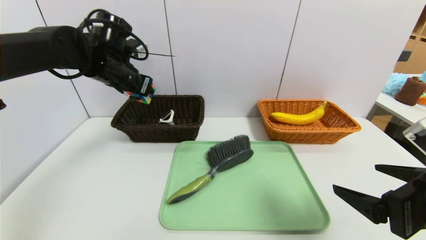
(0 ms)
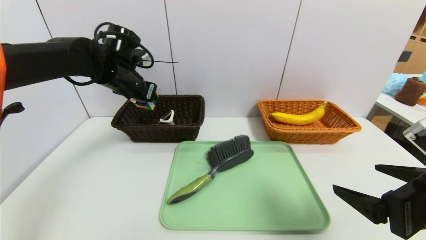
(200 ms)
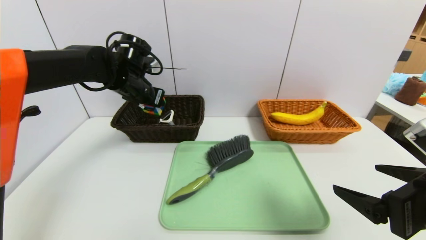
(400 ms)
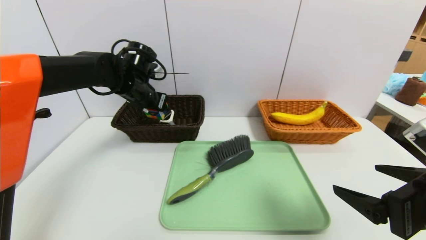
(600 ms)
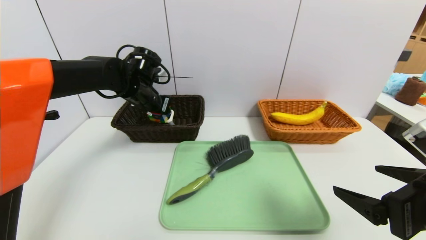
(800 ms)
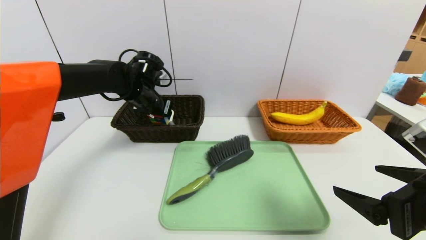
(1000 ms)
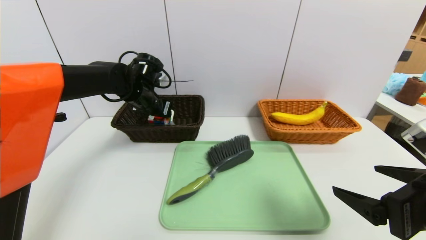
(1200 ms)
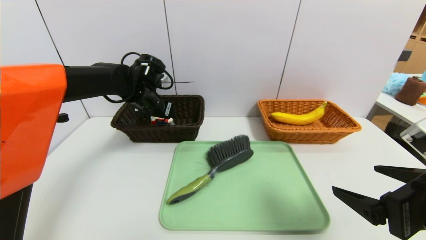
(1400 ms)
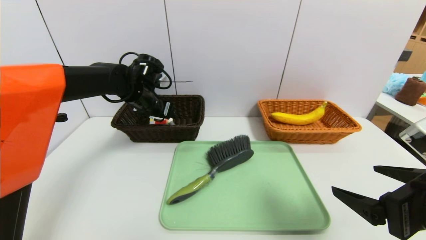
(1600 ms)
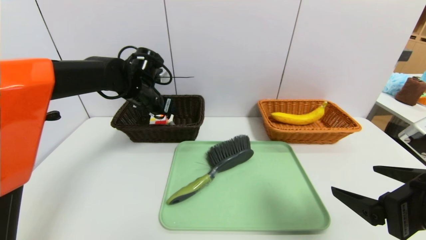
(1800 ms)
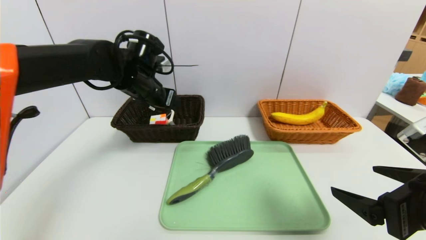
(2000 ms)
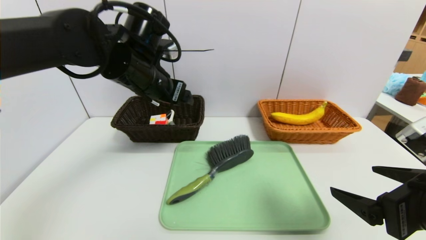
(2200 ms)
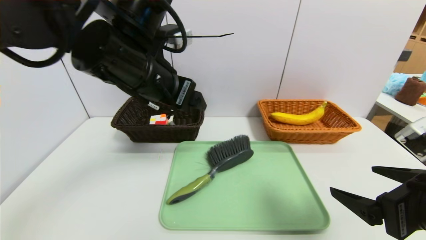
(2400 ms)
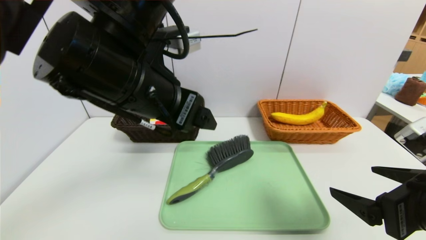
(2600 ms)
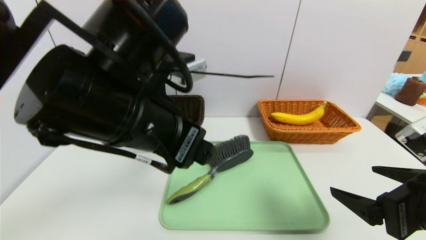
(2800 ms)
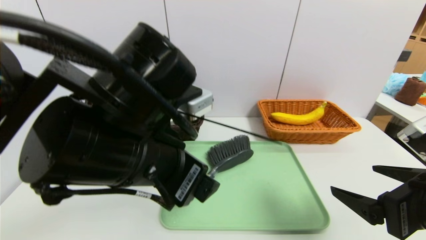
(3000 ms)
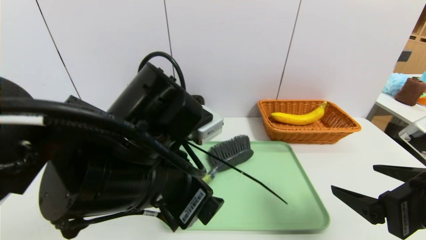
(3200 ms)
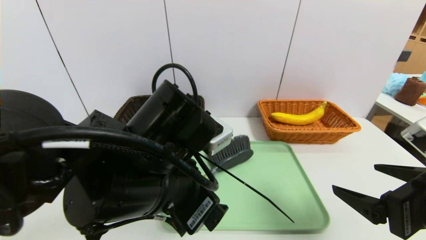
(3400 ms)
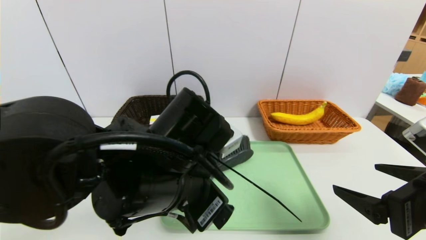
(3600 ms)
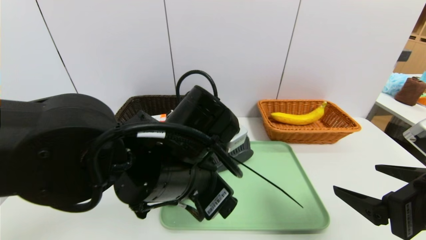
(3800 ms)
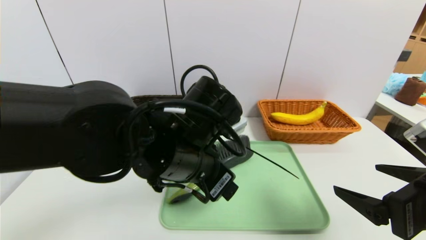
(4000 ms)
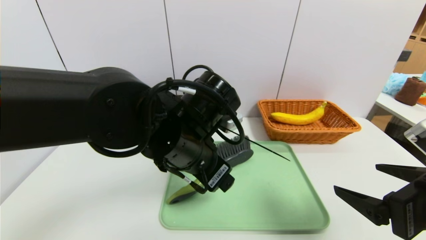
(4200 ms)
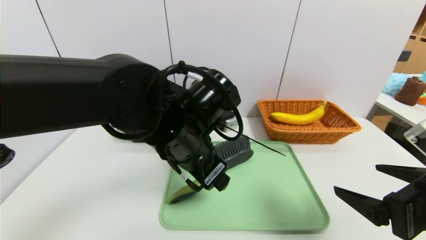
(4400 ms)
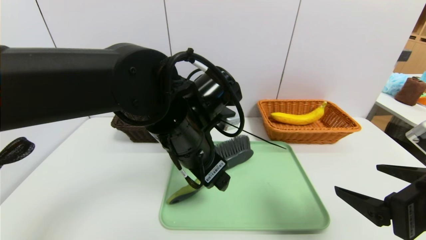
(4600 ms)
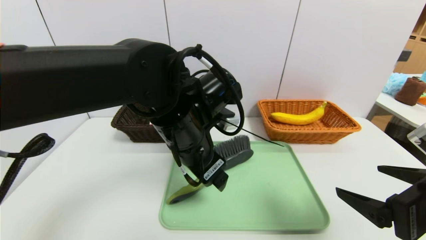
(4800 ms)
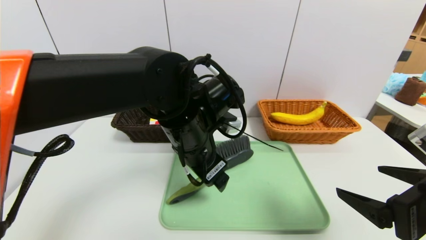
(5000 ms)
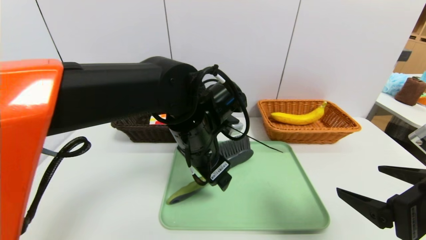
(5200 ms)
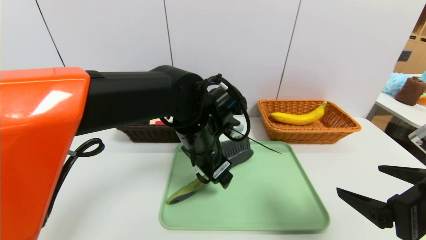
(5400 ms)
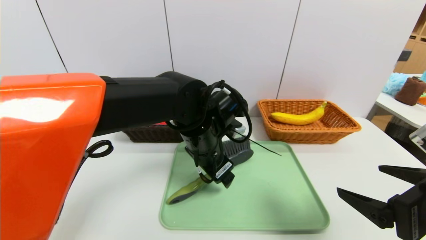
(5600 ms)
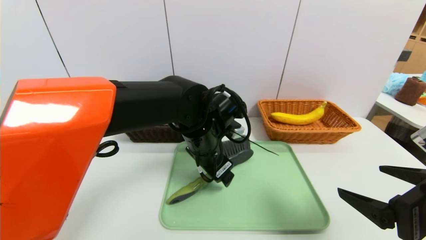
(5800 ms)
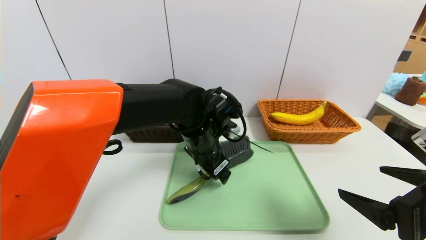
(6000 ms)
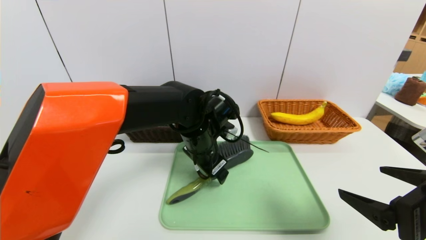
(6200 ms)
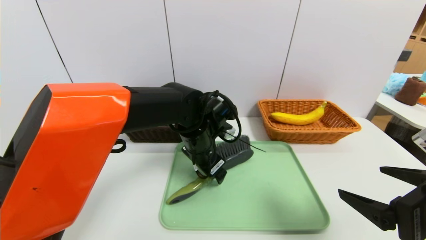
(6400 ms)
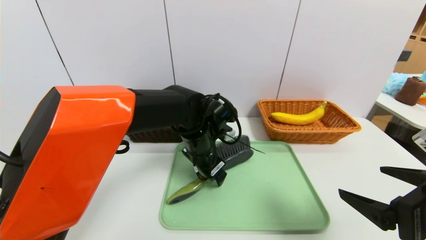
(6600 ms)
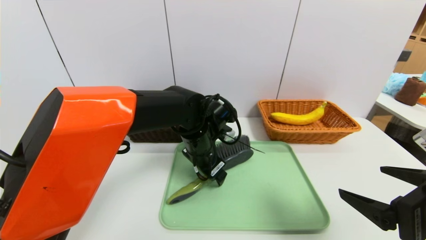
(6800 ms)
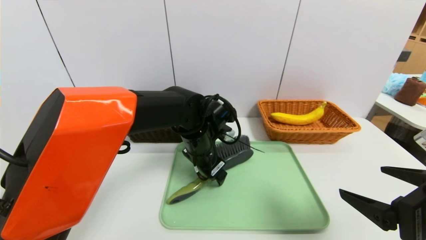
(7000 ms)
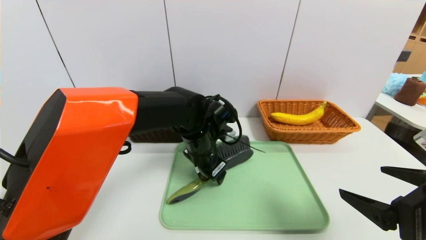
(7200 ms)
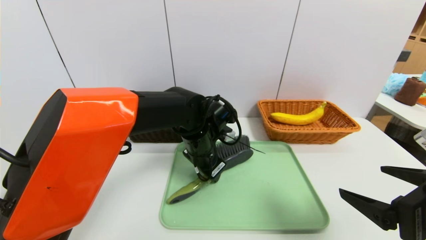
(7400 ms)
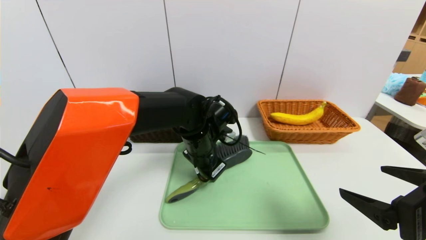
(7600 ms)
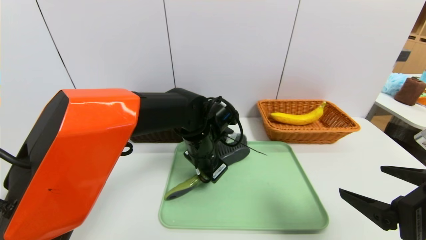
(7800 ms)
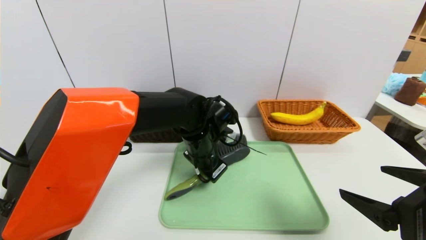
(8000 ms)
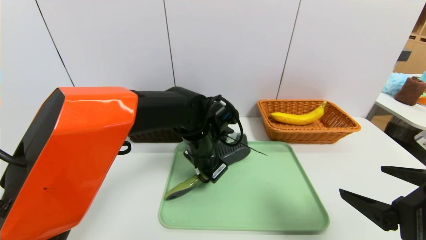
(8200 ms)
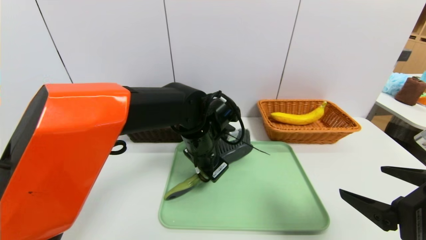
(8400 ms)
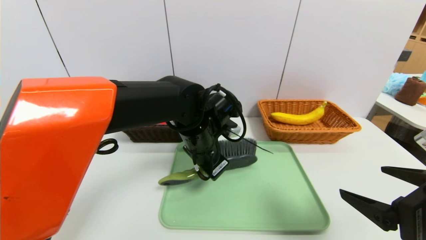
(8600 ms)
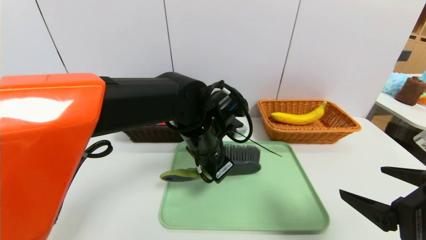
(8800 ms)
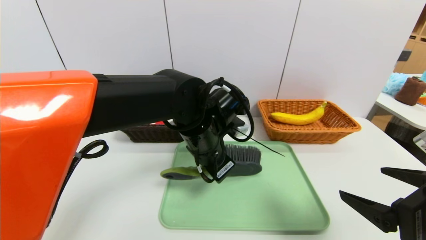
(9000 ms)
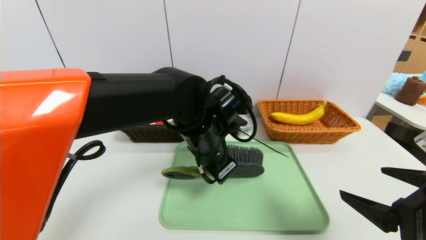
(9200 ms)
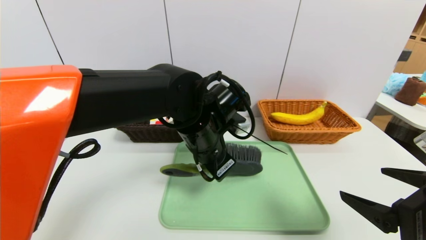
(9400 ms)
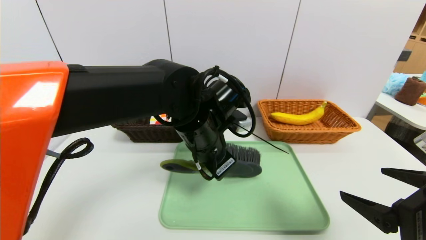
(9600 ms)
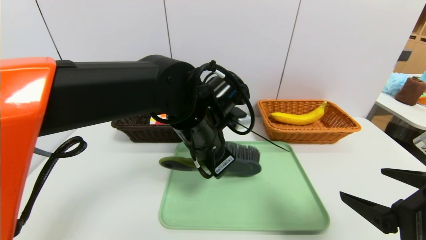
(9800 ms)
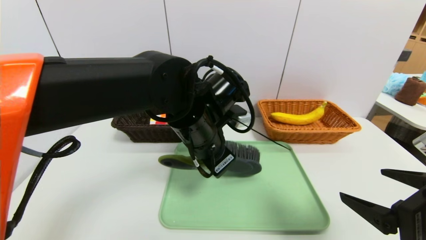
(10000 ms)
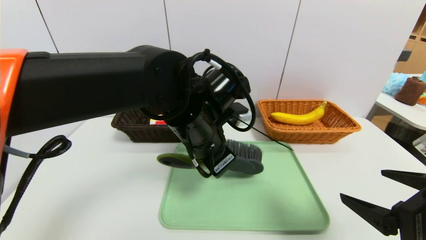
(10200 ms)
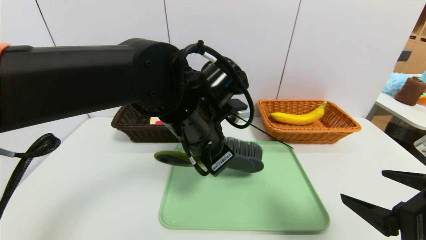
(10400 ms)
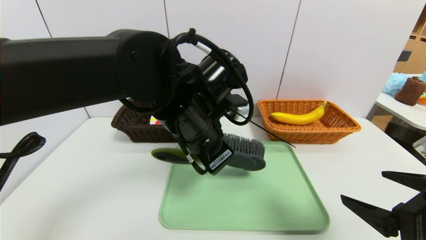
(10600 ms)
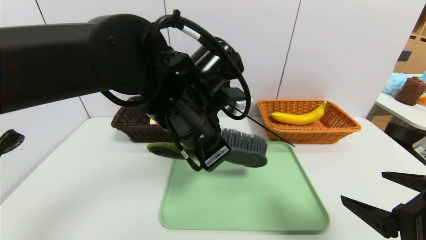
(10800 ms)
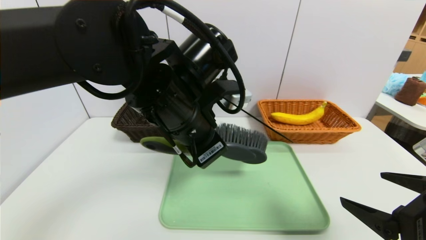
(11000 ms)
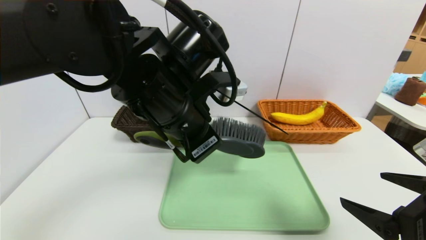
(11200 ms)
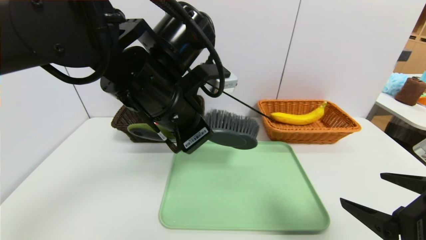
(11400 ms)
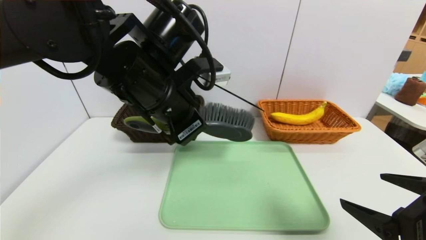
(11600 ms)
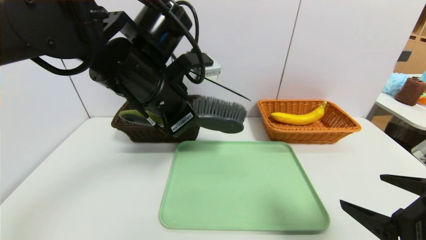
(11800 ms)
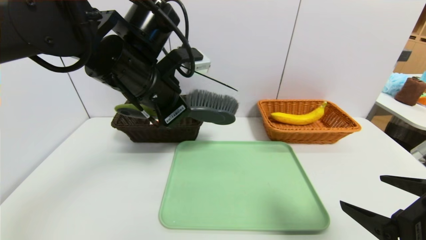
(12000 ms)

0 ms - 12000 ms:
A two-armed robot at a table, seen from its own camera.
Task of the whole recording: place the food in the right basket with the right gripper, and place the non food items in the left basket with the left gripper.
0 ms - 1600 ms: The left gripper travels downward by roughly 5 cm.
1600 ms - 3000 ms: The left gripper moves backward, roughly 25 cm.
3000 ms - 4400 ms: The left gripper heads forward, covering roughly 5 cm.
4400 ms - 6000 ms: The left gripper shifts about 10 cm forward and downward.
6000 ms - 7600 ms: The left gripper closes its fingers.
7600 ms - 9000 ms: The left gripper goes roughly 5 cm upward, and closes.
9000 ms - 10400 ms: The left gripper ends up approximately 5 cm from where it was.
10400 ms - 12000 ms: The left gripper is displaced to the left and upward by roughly 10 cm.

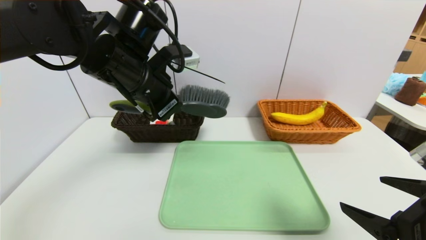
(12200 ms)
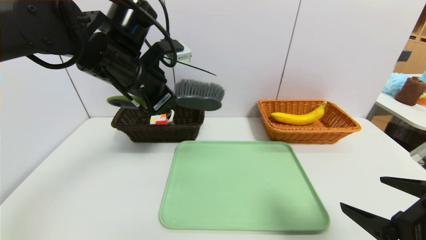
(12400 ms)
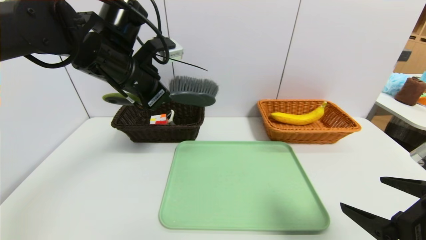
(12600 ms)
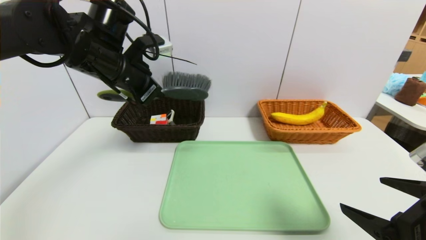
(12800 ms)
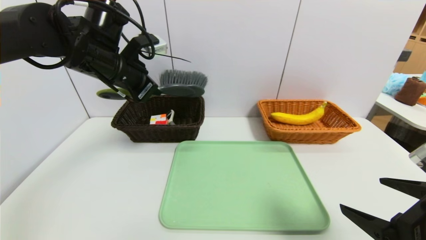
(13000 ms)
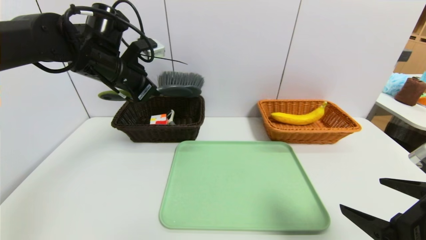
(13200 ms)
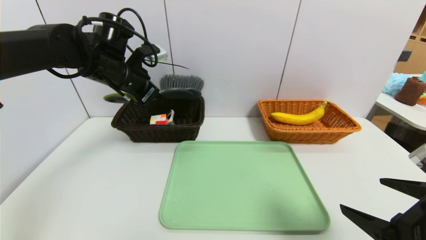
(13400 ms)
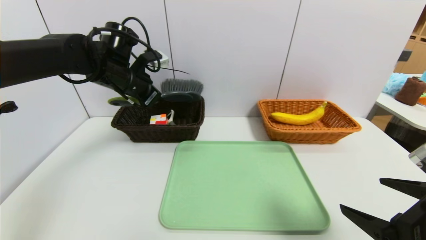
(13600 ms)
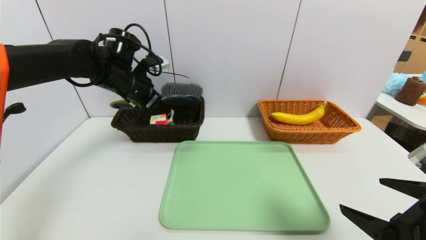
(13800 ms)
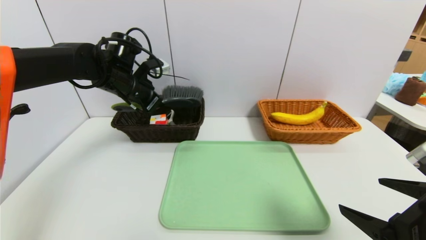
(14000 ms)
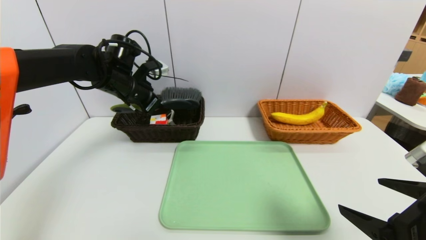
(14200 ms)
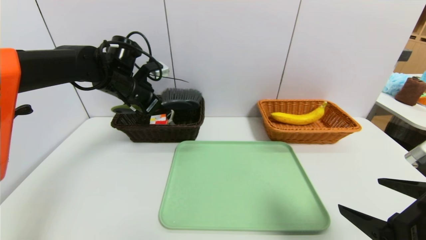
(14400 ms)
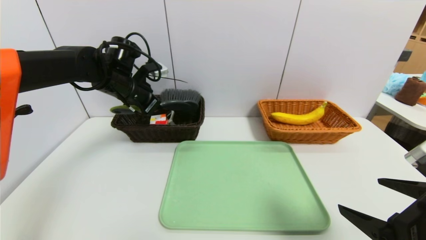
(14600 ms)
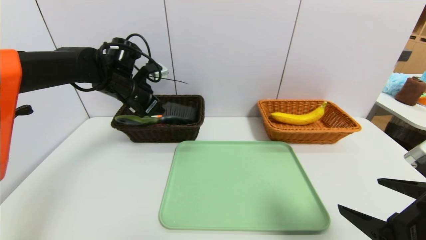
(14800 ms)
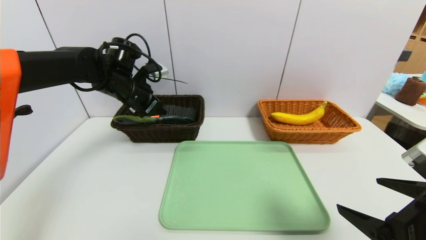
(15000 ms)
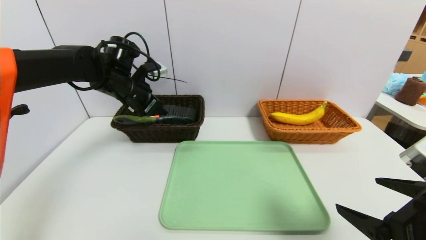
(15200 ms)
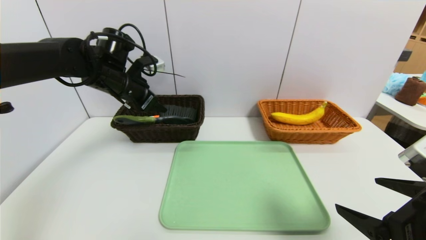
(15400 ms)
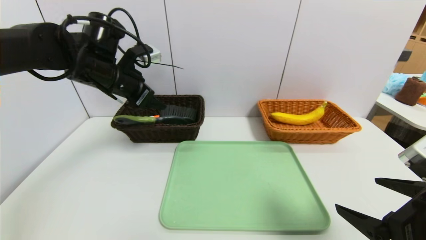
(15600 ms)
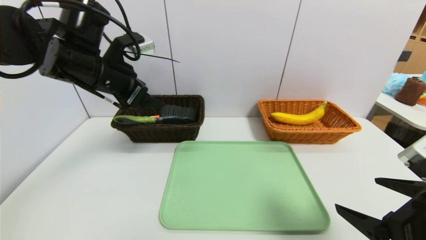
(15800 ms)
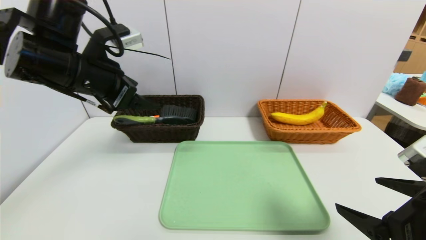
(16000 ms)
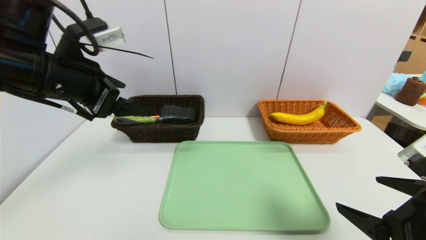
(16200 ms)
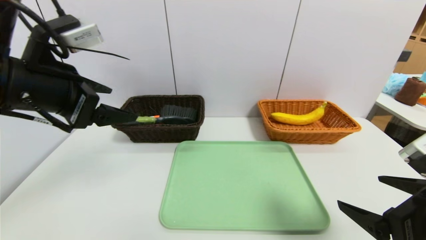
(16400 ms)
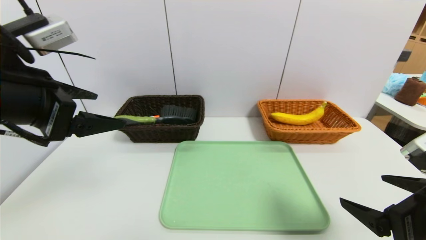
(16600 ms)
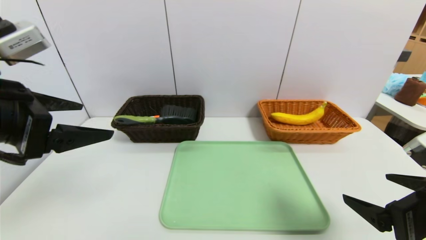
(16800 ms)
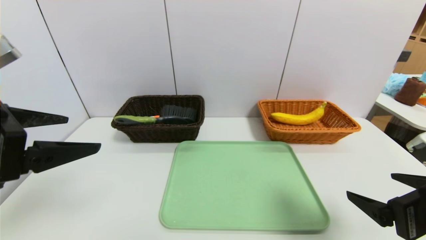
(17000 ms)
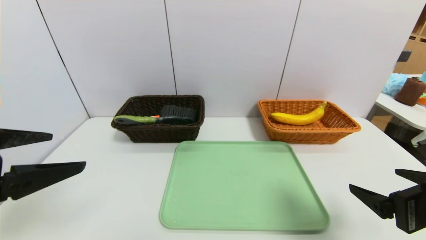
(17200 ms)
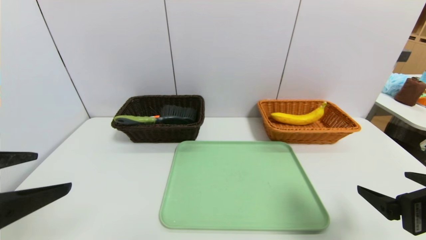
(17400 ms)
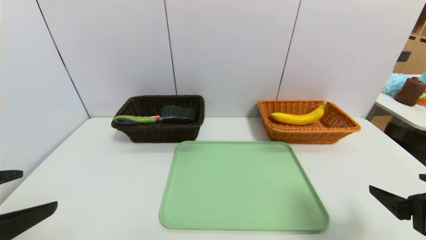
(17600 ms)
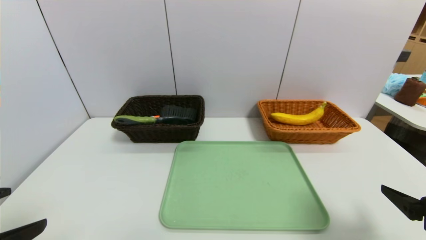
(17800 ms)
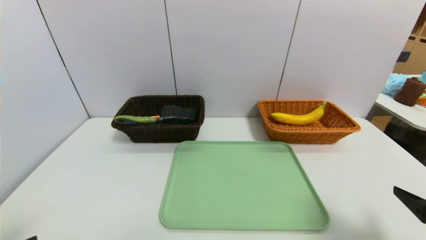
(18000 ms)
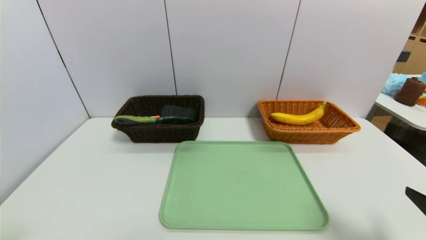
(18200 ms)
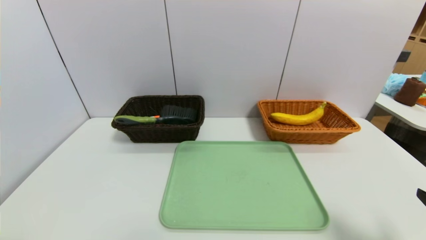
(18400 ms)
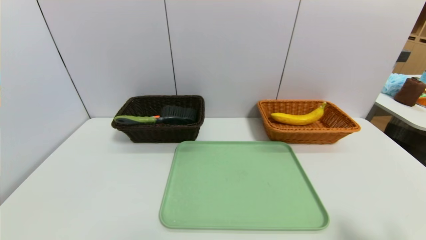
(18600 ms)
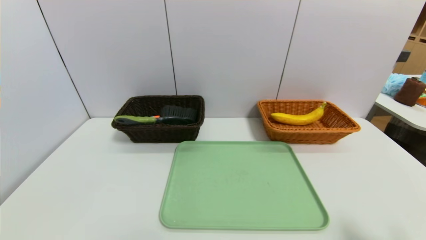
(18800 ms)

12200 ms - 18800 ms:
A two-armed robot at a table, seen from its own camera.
Task of the whole recording: place the food in the right basket with the right gripper, and place the non food items in the left basket with the left gripper.
Step, 12200 ms - 15400 ms: Grasp the brush and put it in the left basket.
12200 ms - 13800 ms: The left gripper travels forward and to the left by roughly 15 cm.
13800 ms - 15400 ms: The left gripper opens its fingers.
15400 ms - 17200 ms: The left gripper moves backward, about 30 cm.
17200 ms - 18800 ms: The right gripper travels backward and to the right by some 10 cm, while the left gripper goes some 20 cm backward and downward.
